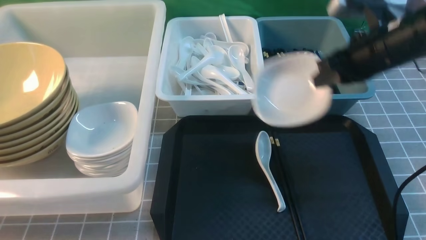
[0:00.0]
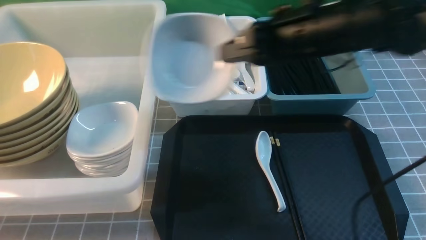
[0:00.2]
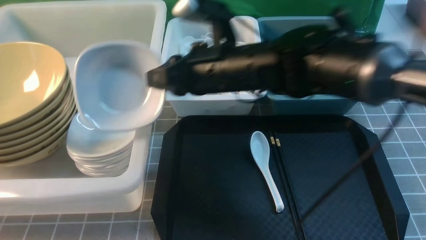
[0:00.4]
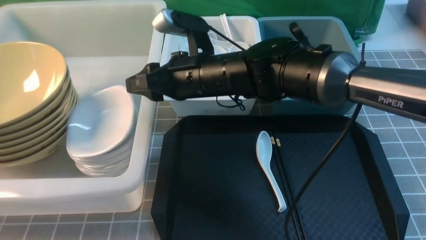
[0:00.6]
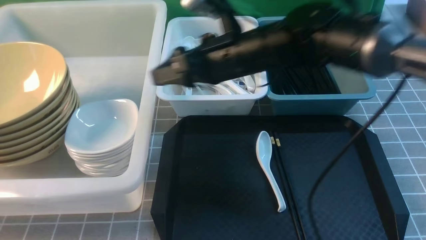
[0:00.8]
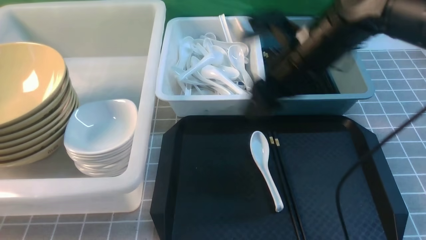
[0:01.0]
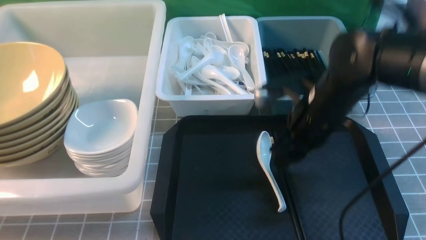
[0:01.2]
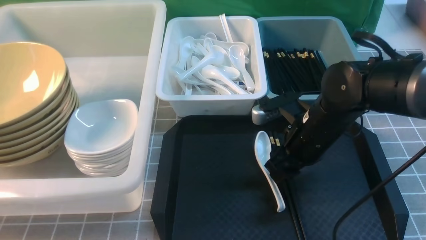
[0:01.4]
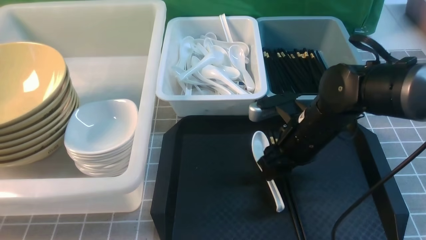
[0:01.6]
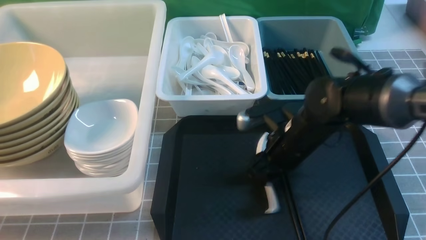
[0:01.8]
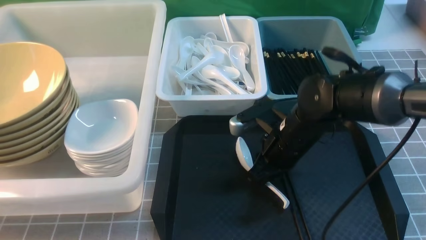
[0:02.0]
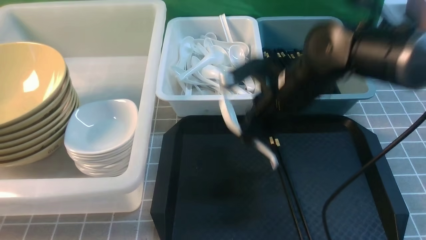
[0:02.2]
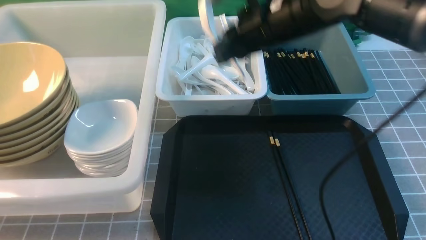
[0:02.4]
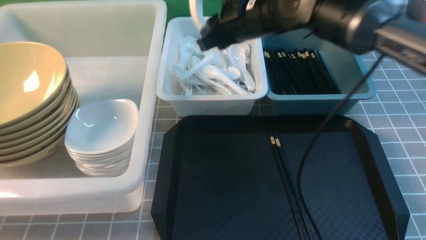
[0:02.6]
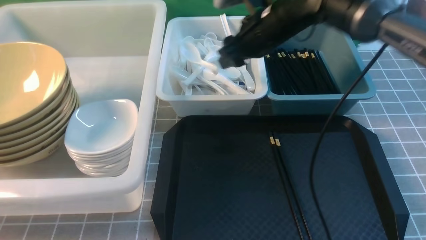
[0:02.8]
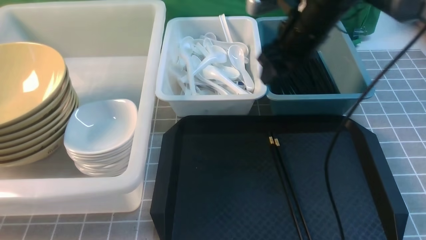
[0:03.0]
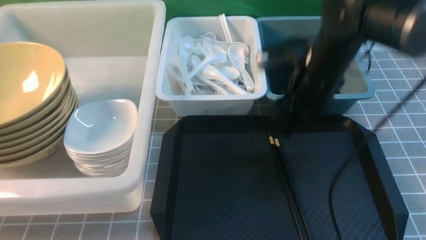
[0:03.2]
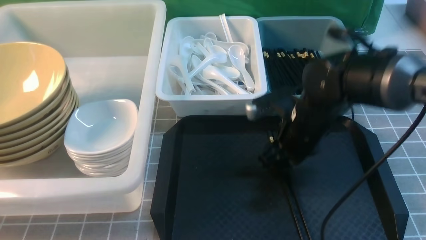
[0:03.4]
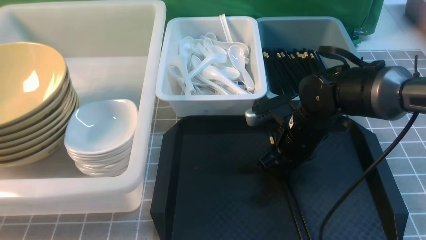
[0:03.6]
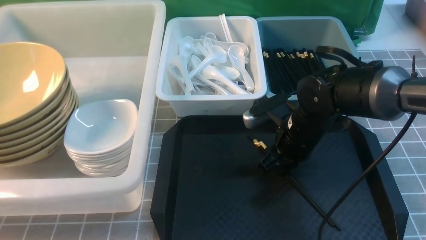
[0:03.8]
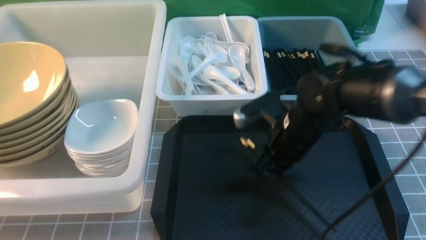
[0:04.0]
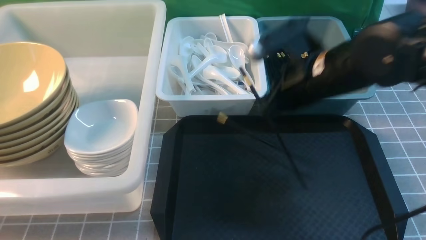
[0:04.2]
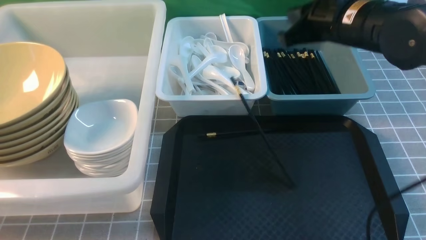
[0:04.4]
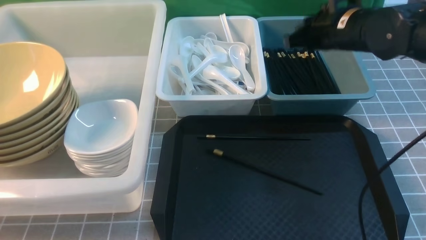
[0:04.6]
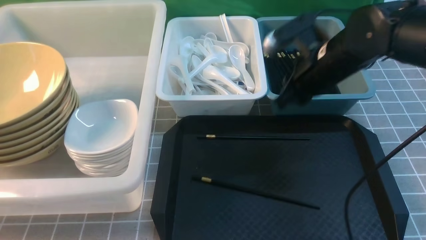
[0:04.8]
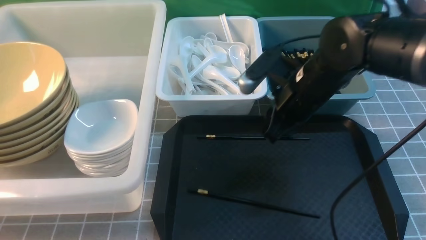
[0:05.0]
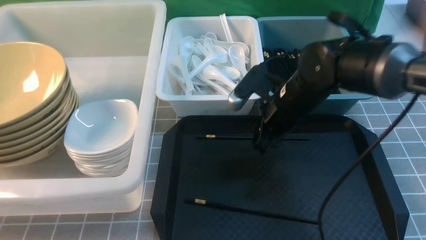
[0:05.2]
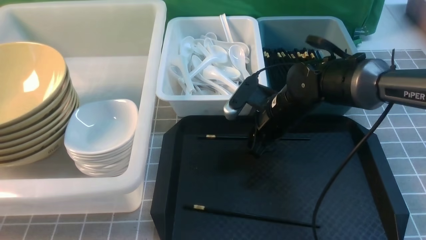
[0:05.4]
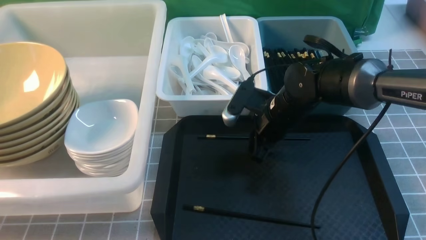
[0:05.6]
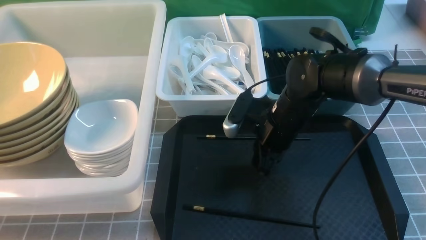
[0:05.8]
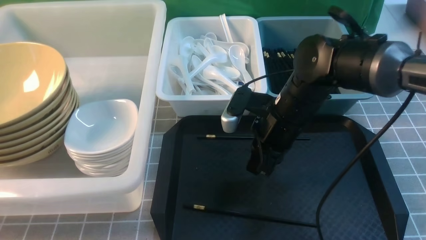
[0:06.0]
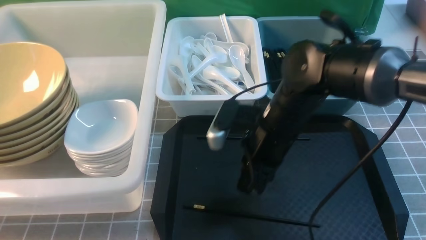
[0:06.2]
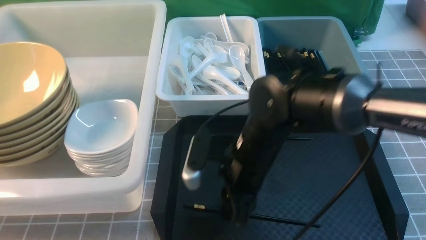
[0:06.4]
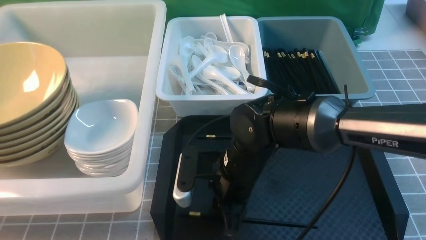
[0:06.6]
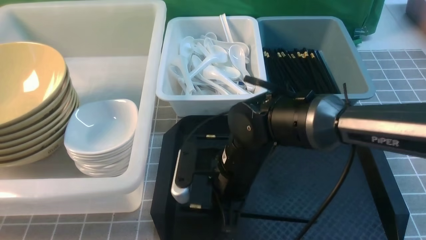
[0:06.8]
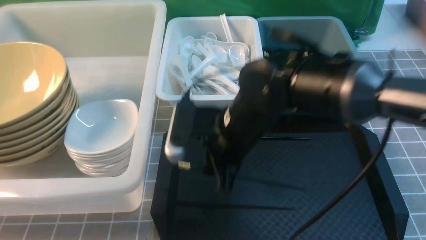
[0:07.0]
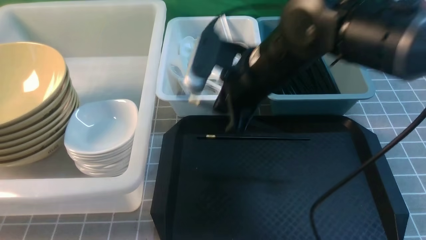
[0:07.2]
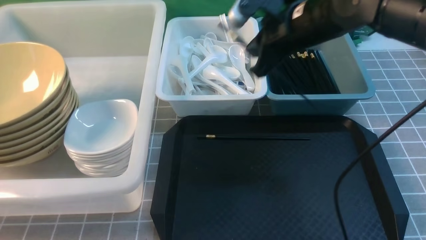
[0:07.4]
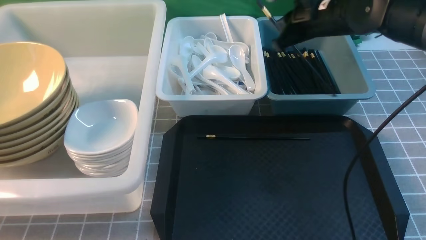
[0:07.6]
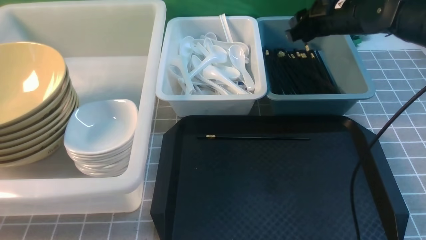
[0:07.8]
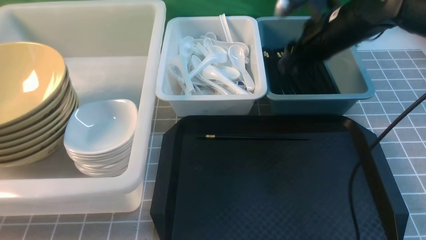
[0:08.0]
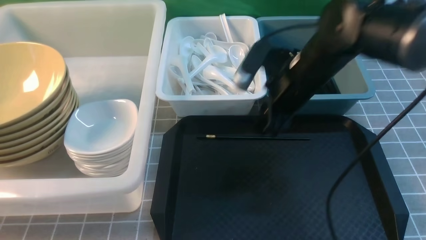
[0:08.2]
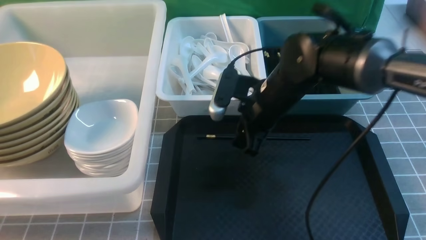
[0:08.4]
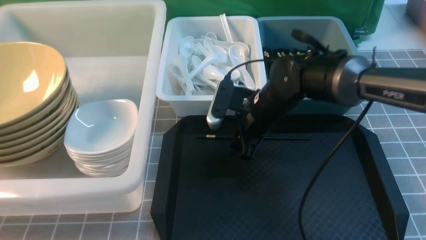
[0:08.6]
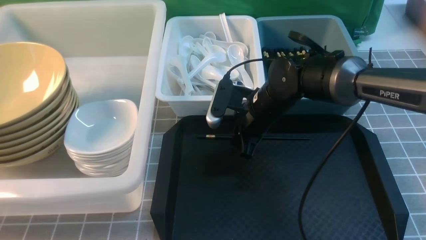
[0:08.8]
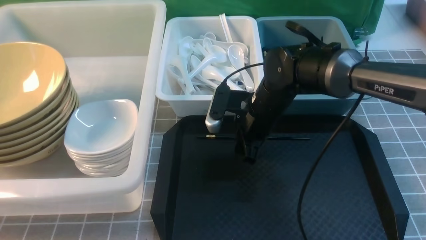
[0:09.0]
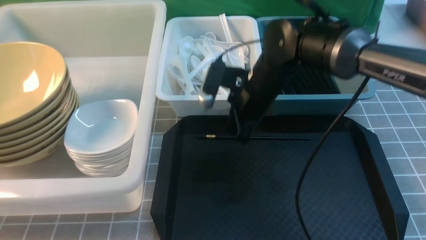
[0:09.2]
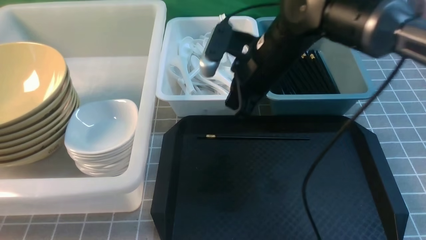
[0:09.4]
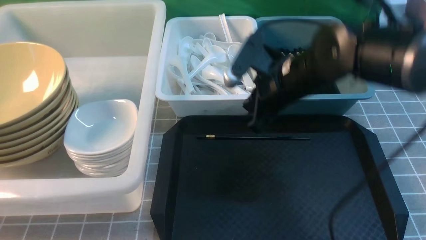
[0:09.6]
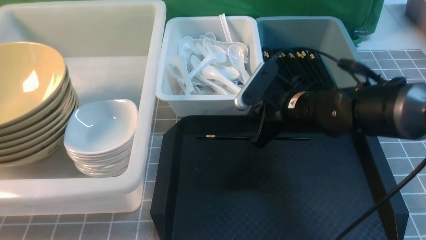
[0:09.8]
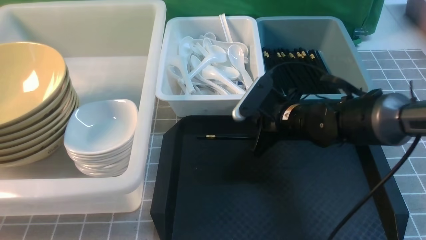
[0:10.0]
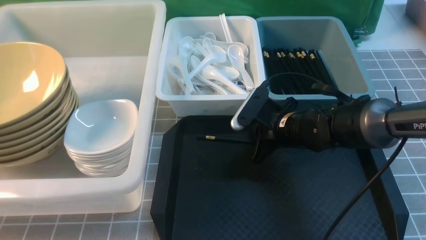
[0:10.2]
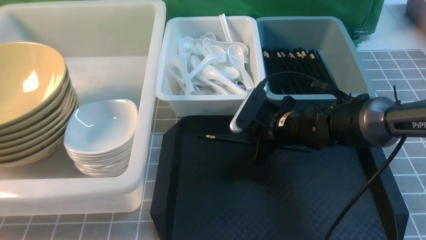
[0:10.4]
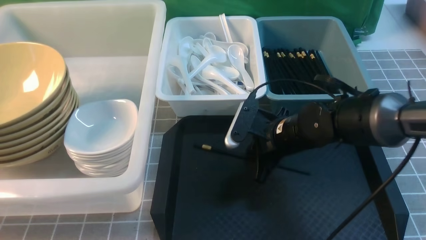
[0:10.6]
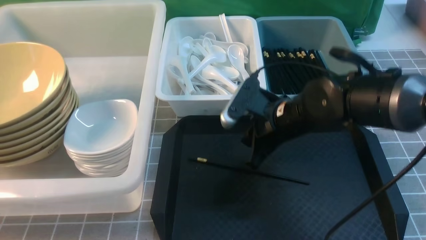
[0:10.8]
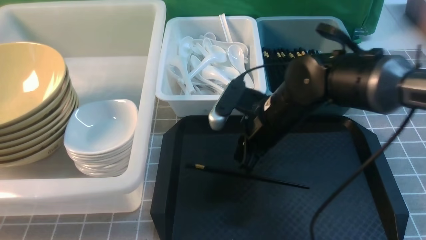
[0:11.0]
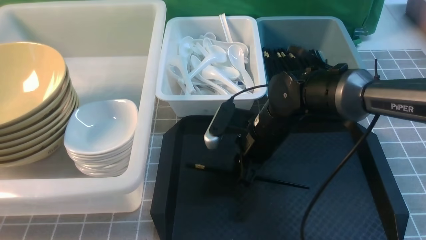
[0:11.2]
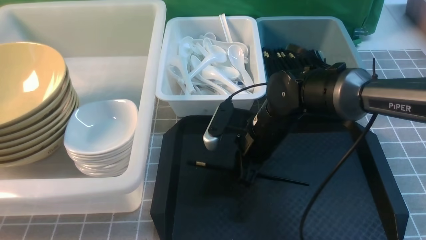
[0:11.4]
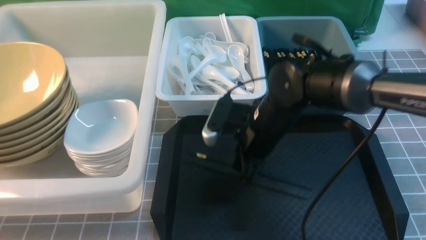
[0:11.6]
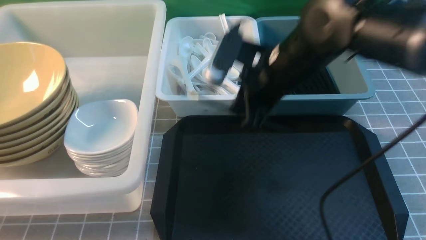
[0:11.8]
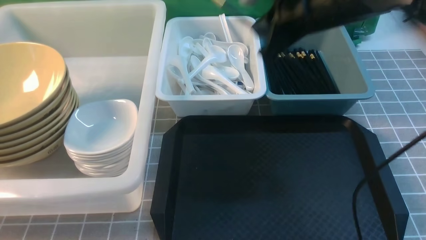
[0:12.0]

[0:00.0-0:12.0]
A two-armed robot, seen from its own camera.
Task of the whole recording: on grey table put chopsticks spoon bowls plates into blue grey white boxes.
Step, 0:00.0 to 0:00.6: use the right arm to put the plate into the large storage box on the left.
Step, 0:00.8 to 0:02.2: use the right arm to grab the soup spoon in the middle.
Step, 0:02.4 to 0:02.8: use the right arm to put the soup spoon into the small storage box in the middle.
Step, 0:03.0 to 0:07.2: use the right arm to grab a chopstick.
Step, 0:08.0 to 0:11.8: use the right arm to grab a chopstick.
0:00.0 to 0:01.6: The right gripper moves downward, roughly 10 cm, moves about 15 cm to the left and comes back, and opens up.
0:01.6 to 0:03.0: The right gripper is displaced upward and forward by roughly 15 cm, and closes, then opens again.
0:03.0 to 0:04.4: The right gripper goes downward and returns, roughly 10 cm each way, and closes up.
0:04.4 to 0:06.0: The right gripper heads downward and to the left, covering some 15 cm, and opens, then closes once more.
0:06.0 to 0:07.6: The right gripper shifts about 15 cm forward, upward and to the right, and opens.
0:07.6 to 0:09.0: The right gripper heads downward, to the left and backward, covering some 15 cm, and opens, then closes once more.
0:09.0 to 0:10.4: The right gripper is displaced downward by some 5 cm.
0:10.4 to 0:12.0: The right gripper travels upward by roughly 20 cm, and opens and closes again.

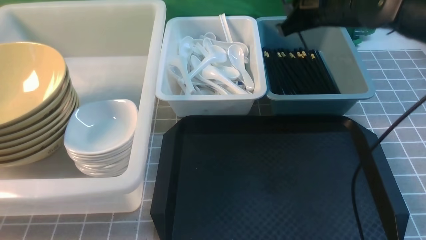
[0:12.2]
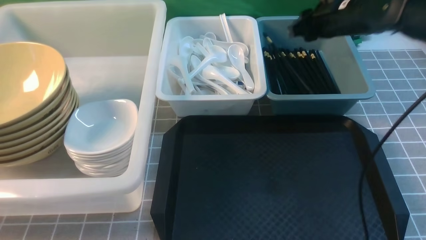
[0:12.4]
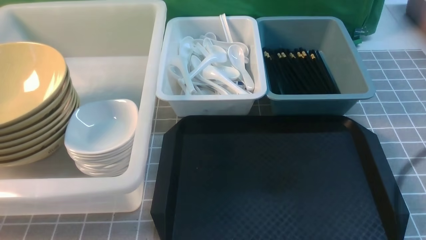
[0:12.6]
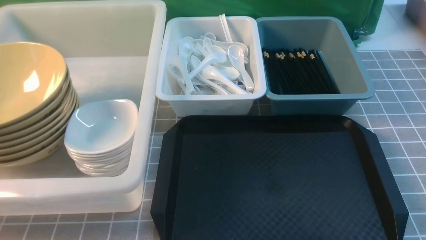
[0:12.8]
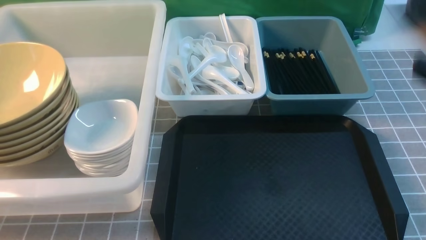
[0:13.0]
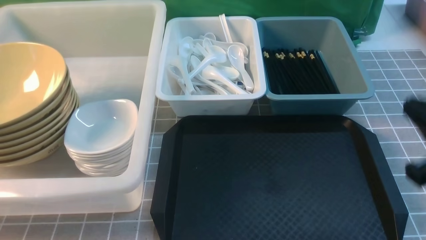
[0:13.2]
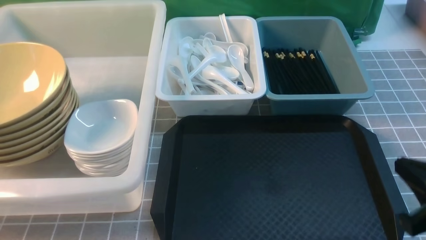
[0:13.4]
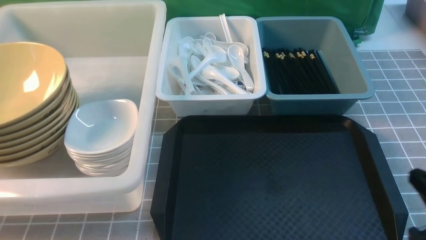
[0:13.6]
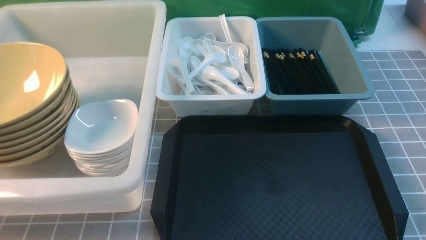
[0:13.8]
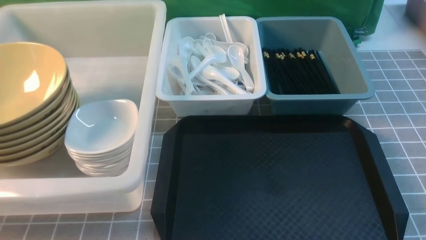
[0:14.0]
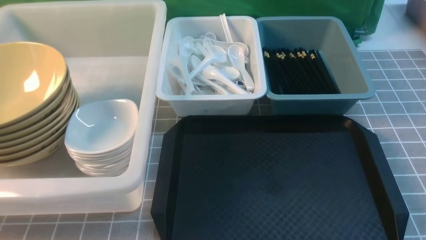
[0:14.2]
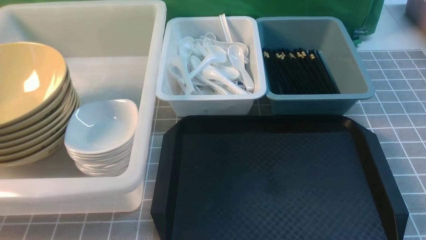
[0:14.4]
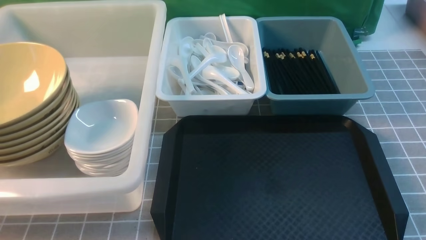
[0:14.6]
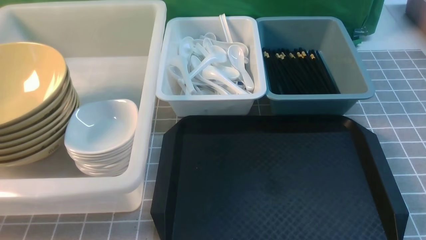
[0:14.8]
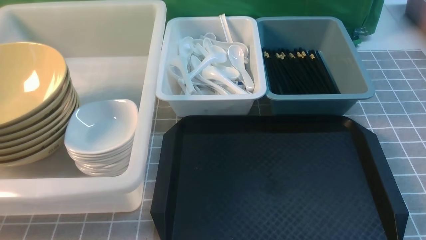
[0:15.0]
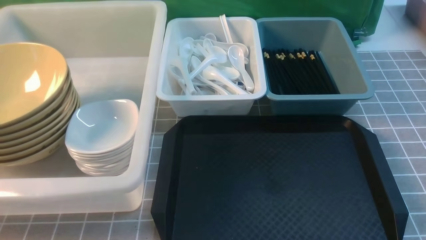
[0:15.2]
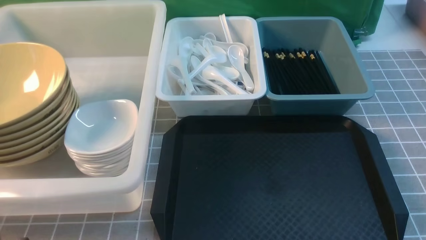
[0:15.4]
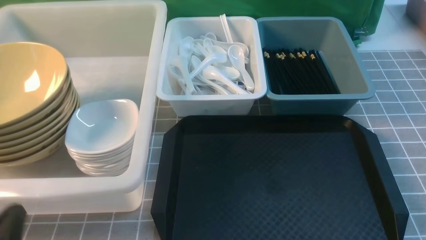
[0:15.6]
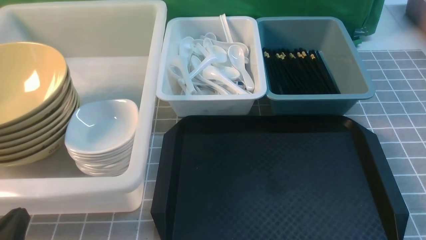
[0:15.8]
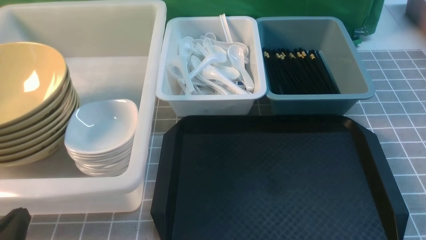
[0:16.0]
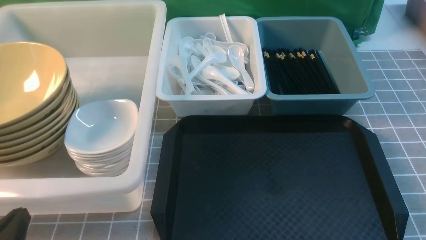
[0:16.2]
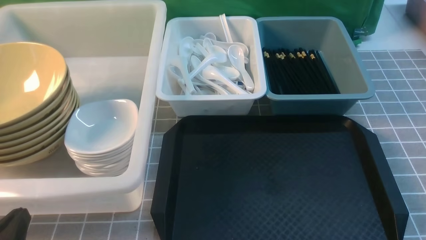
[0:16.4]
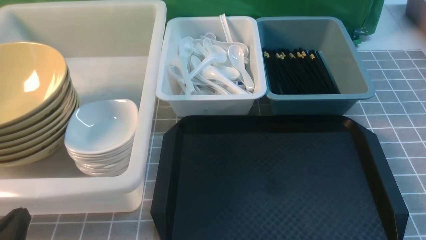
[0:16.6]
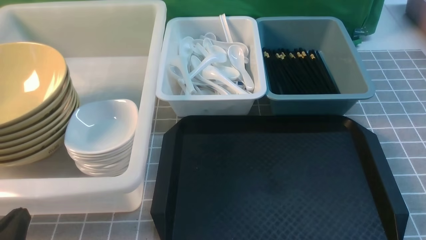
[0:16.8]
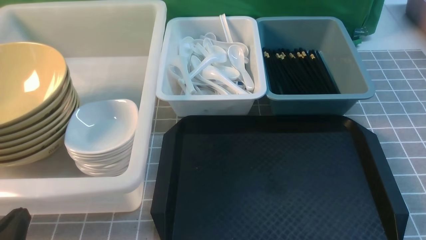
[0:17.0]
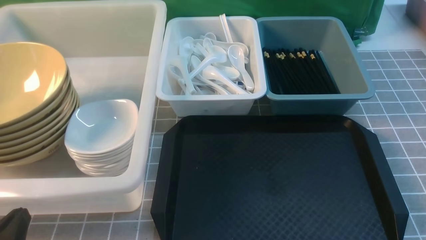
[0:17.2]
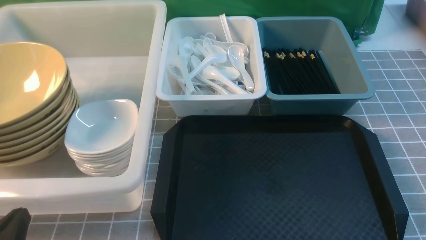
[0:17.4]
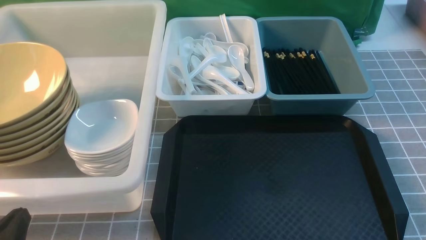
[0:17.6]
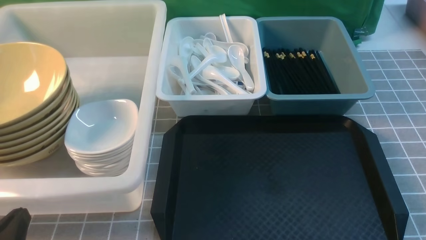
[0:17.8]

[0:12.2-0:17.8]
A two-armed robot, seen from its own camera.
Task of the whole recording: on grey table put chopsticks spoon bowls plates into blue grey white boxes.
0:12.2 to 0:13.6: The right gripper travels backward by approximately 30 cm, and closes.
0:13.6 to 0:15.0: The right gripper heads backward, covering roughly 5 cm.
0:15.0 to 0:16.4: The left gripper heads downward, covering some 10 cm.
0:16.4 to 0:17.8: The two grippers keep their place.
